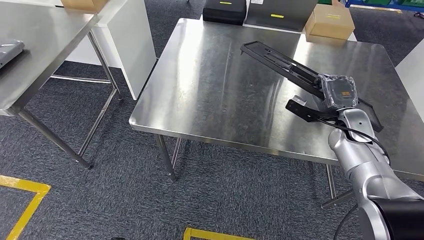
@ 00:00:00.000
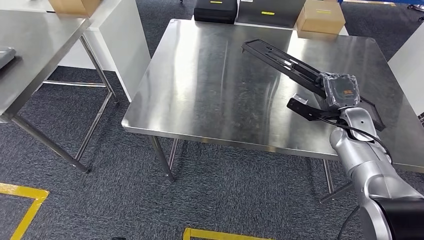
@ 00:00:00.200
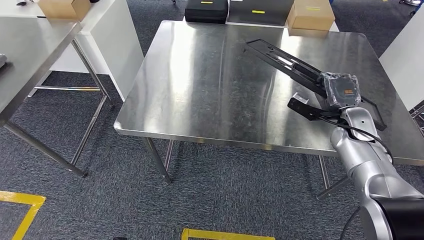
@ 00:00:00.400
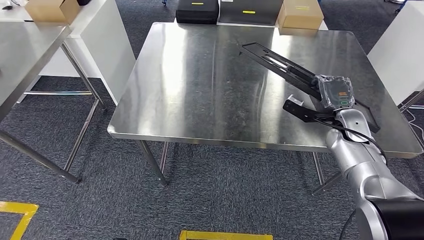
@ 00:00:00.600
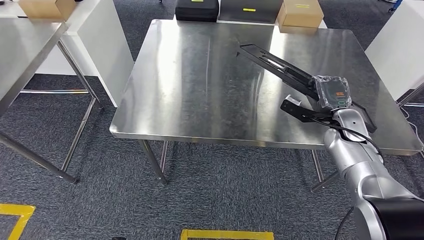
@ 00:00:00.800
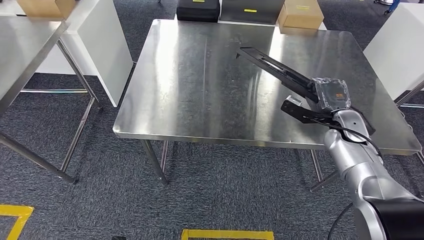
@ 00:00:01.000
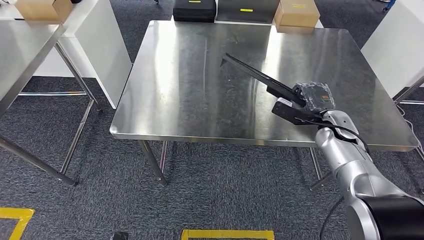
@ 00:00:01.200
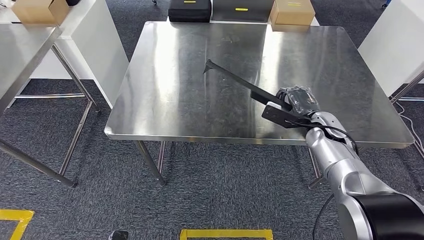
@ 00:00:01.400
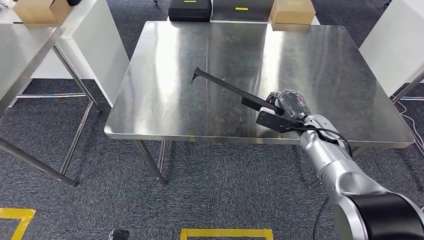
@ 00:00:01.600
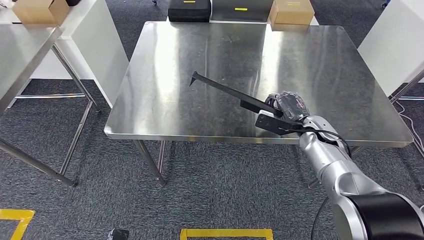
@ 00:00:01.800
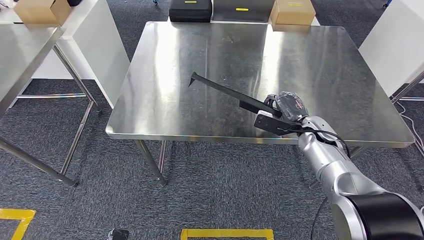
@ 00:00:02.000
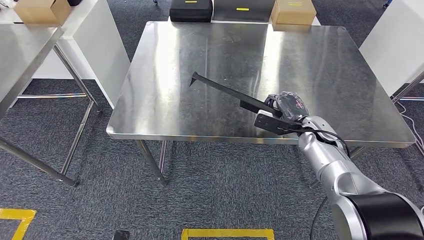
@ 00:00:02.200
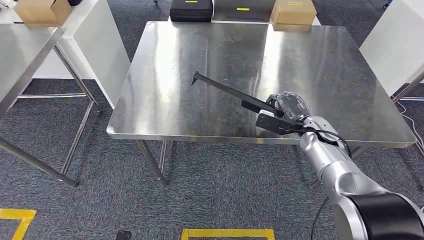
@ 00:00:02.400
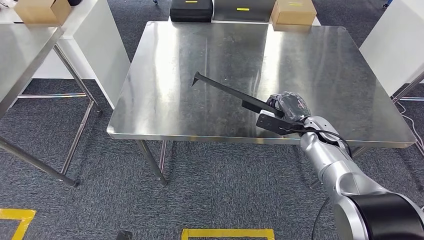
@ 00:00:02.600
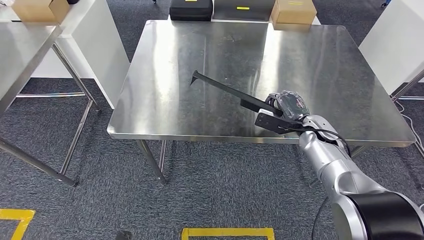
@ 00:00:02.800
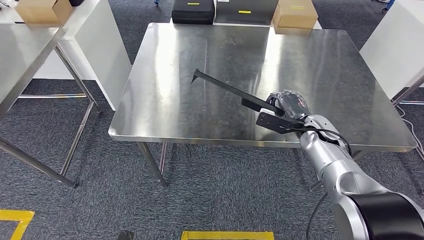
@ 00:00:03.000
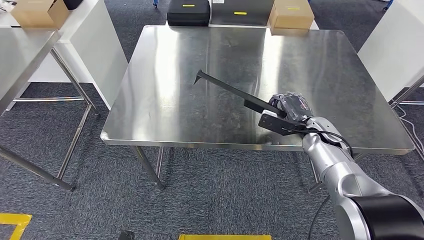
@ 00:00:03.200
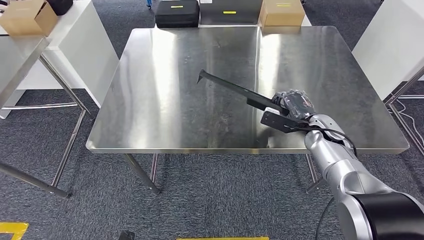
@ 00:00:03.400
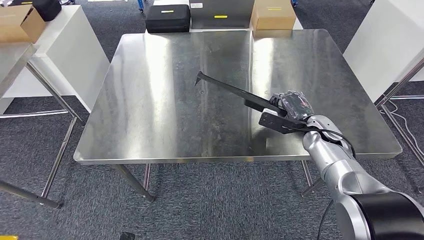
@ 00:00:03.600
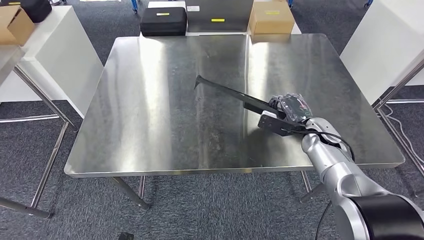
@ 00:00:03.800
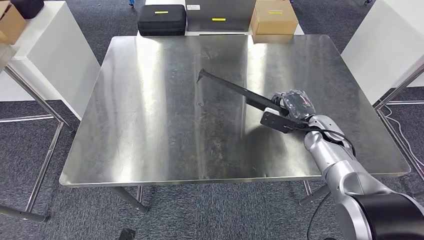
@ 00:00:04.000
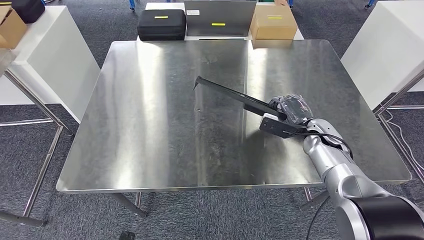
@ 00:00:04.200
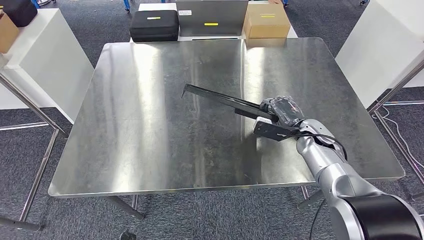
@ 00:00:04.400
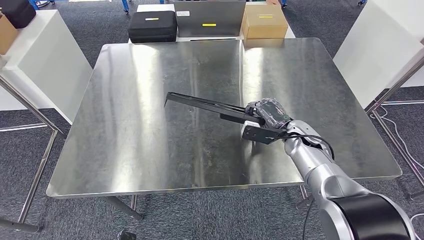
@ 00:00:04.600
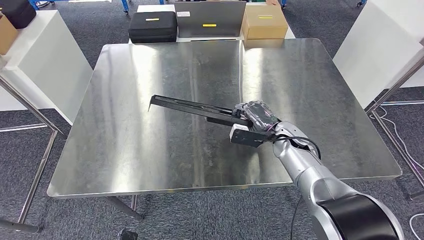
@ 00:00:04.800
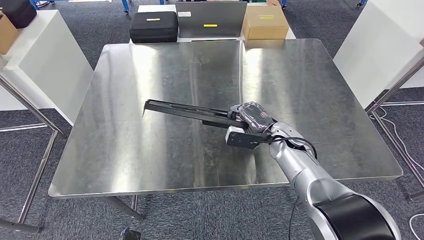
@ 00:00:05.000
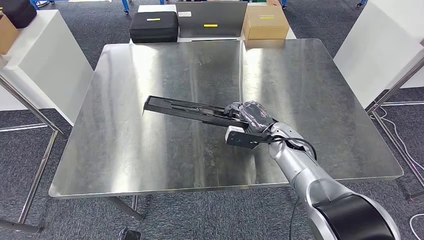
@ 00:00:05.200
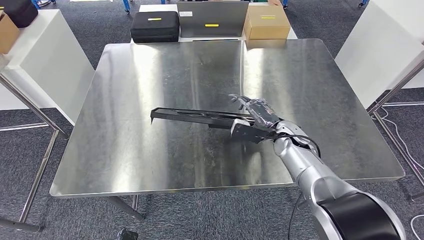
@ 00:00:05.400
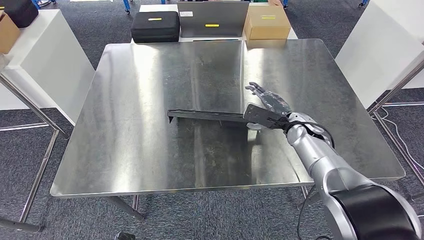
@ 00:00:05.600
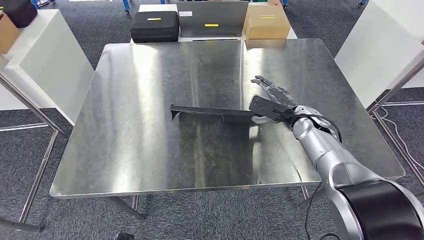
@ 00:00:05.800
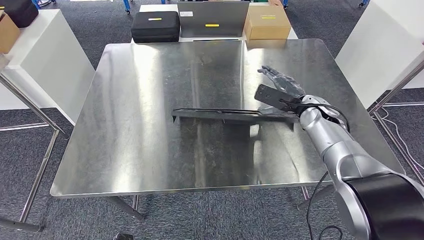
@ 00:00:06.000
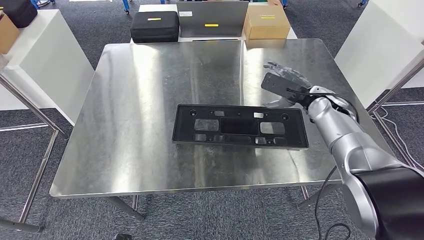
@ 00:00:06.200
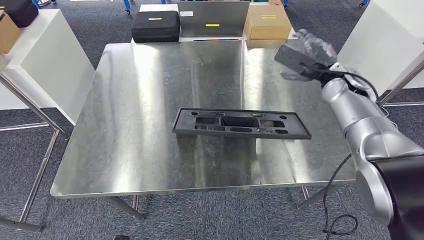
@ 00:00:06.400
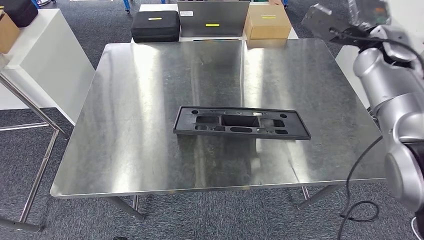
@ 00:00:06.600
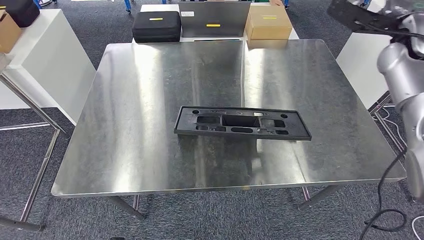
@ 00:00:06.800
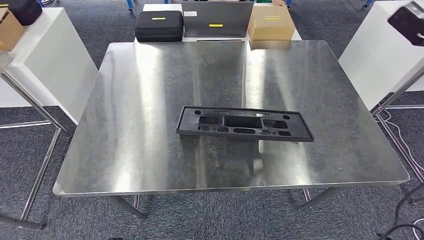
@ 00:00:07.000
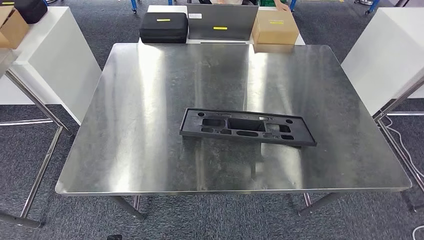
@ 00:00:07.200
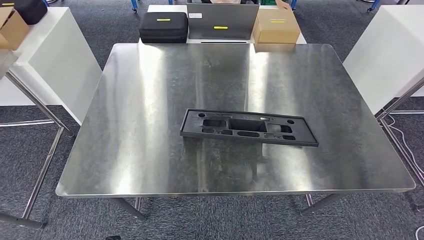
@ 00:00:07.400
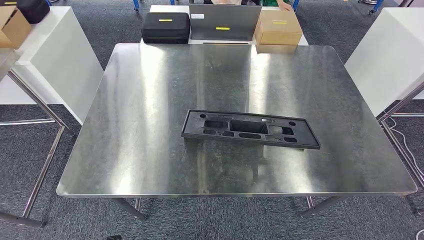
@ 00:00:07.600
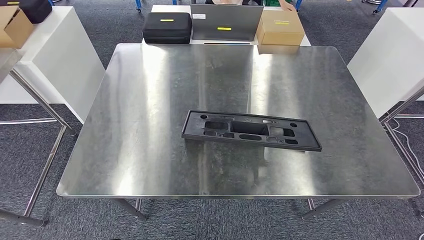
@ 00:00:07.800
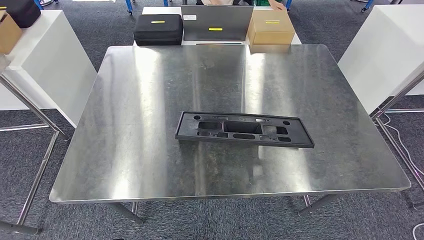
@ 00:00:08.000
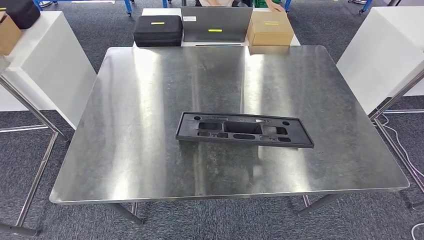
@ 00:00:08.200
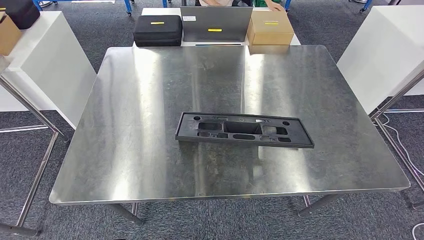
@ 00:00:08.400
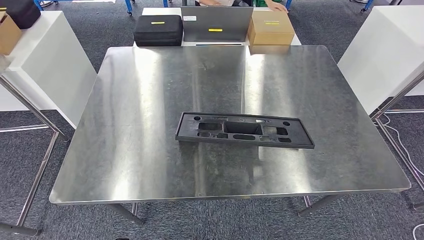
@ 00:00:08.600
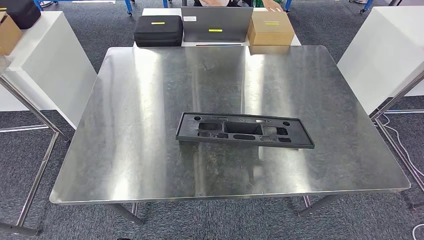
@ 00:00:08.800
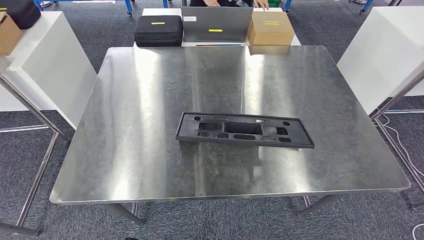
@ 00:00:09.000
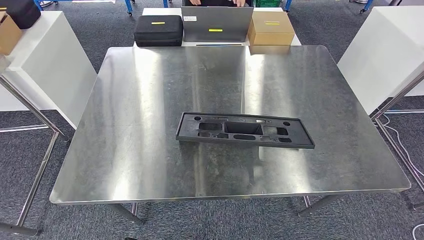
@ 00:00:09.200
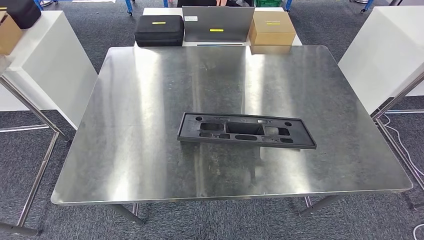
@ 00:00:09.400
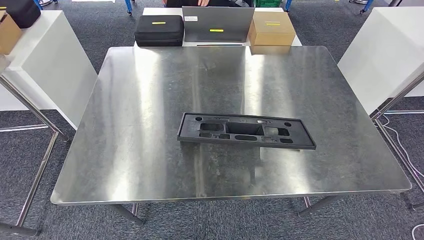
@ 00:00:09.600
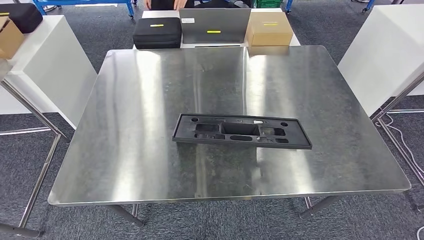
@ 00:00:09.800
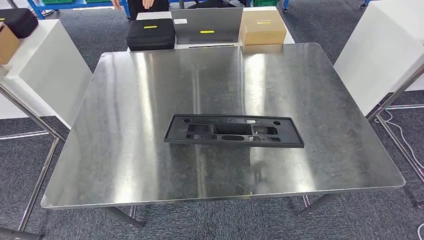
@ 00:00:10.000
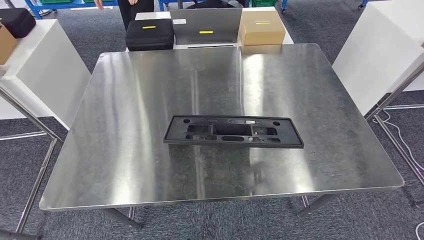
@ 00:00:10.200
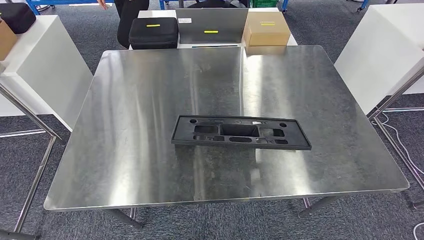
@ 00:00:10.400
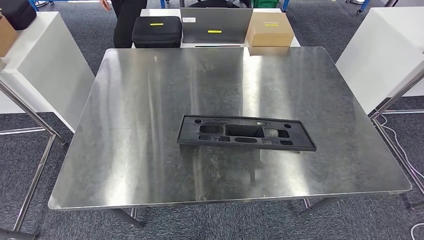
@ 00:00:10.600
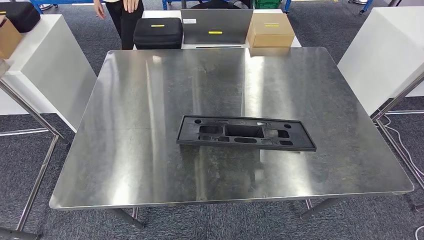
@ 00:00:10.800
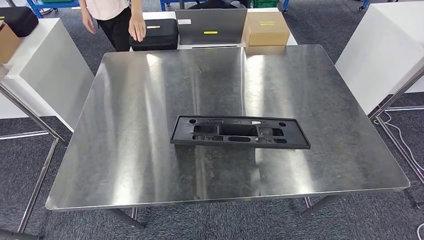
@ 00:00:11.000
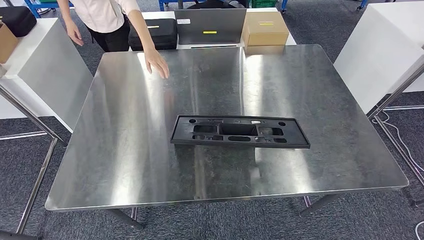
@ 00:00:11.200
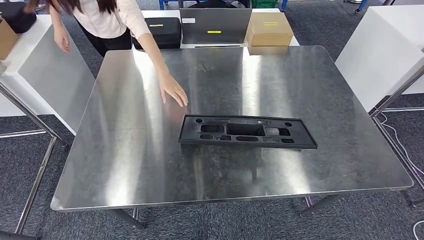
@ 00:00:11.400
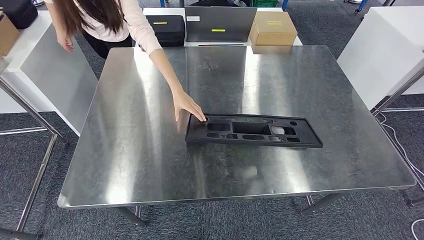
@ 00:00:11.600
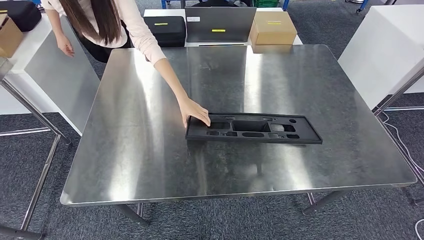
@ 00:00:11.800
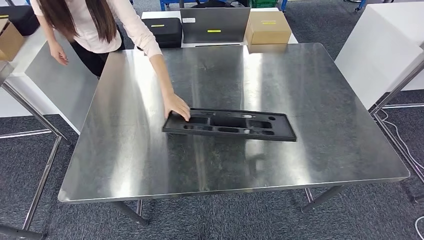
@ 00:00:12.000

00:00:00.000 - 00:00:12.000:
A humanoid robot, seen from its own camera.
Step, 00:00:00.000 - 00:00:08.600: Insert the large material into the corresponding slot on the workbench.
00:00:01.600 - 00:00:03.000: There are only small adjustments of the hands.
00:00:04.400 - 00:00:06.000: The right hand moves upward, about 5 cm, and moves roughly 10 cm to the left and comes back.

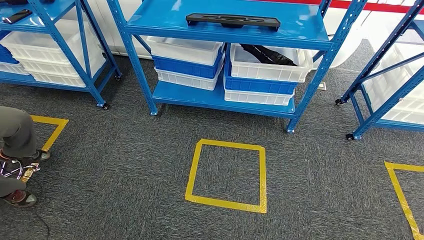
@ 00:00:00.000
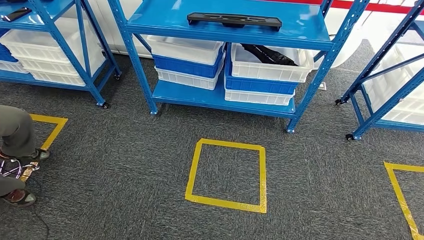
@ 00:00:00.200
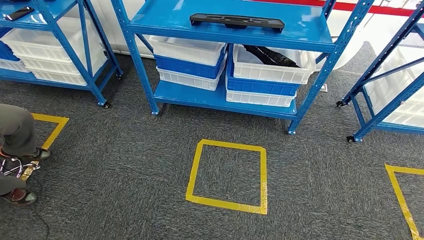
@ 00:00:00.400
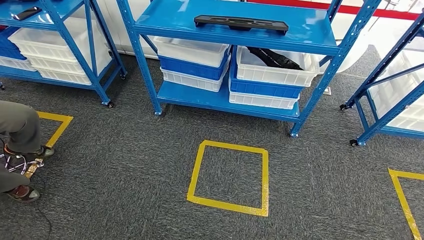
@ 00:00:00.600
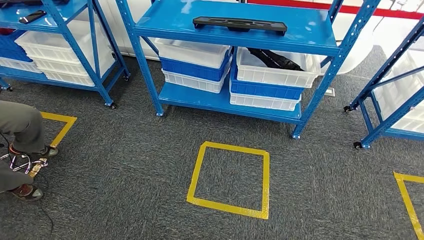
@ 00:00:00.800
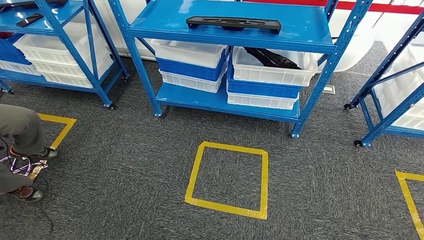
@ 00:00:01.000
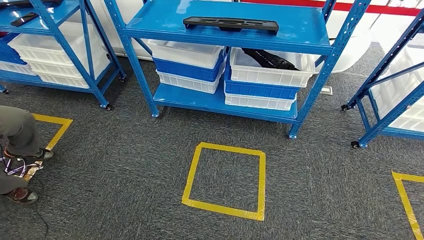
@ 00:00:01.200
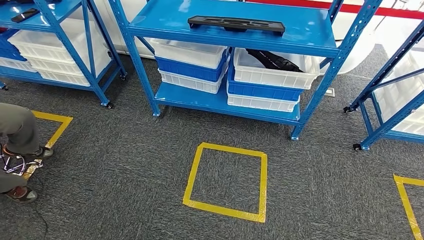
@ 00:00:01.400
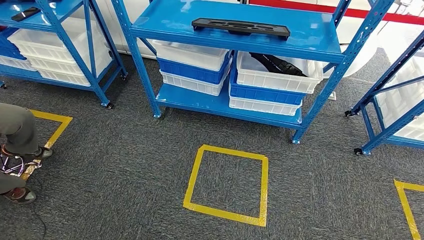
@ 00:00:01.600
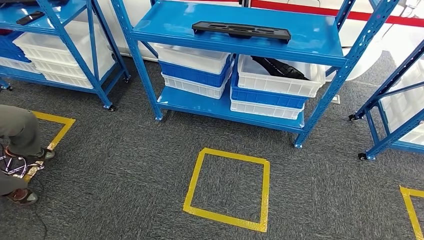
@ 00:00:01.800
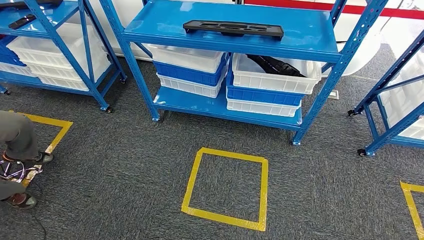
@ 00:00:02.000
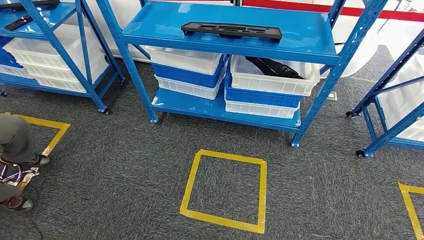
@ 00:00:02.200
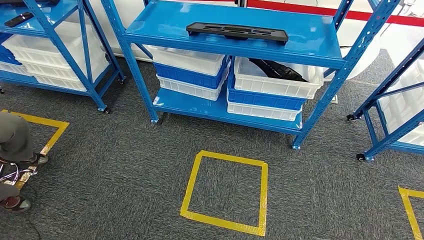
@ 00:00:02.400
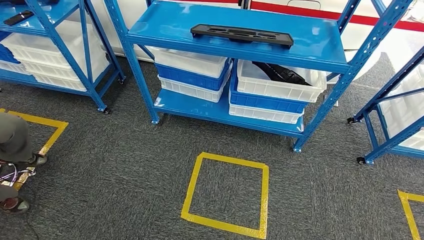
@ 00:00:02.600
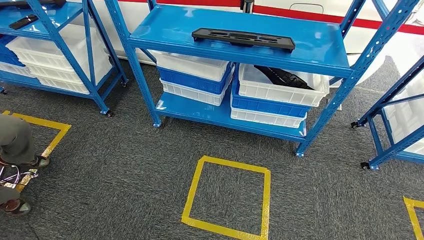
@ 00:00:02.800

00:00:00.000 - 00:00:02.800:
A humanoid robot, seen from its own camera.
Step, 00:00:00.000 - 00:00:02.800: Move to the initial position of the shelf.
